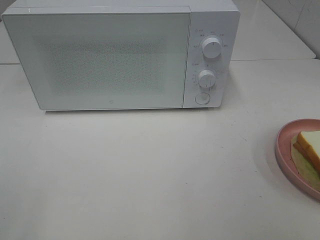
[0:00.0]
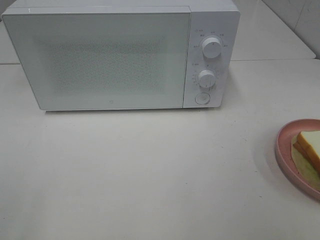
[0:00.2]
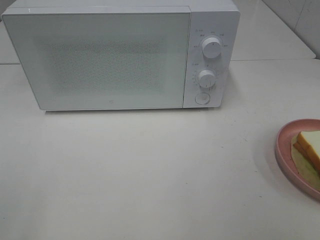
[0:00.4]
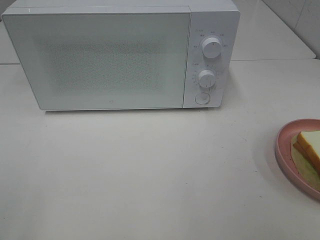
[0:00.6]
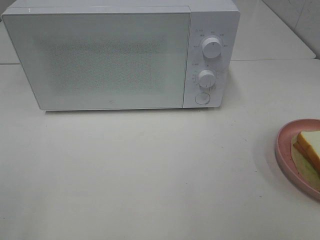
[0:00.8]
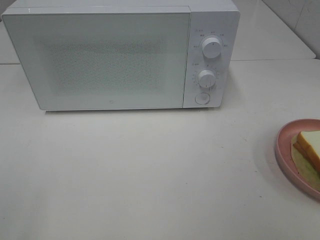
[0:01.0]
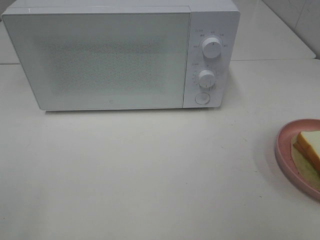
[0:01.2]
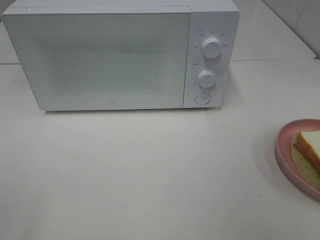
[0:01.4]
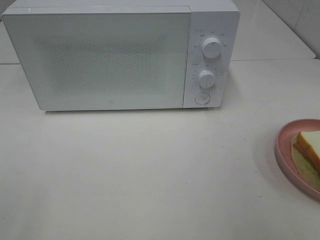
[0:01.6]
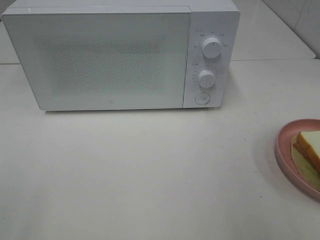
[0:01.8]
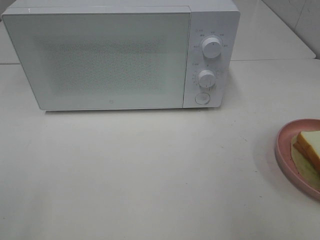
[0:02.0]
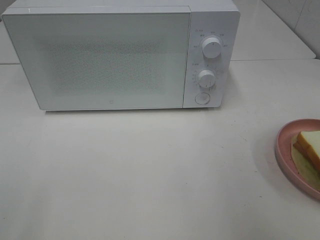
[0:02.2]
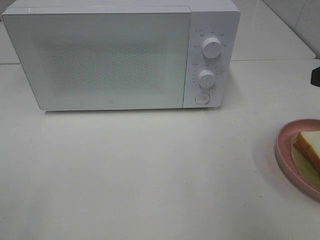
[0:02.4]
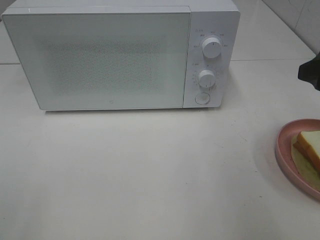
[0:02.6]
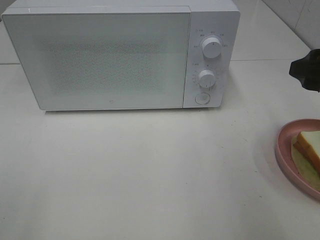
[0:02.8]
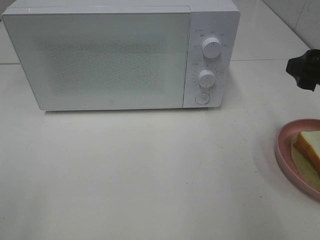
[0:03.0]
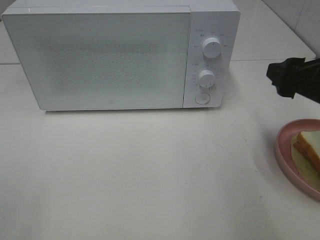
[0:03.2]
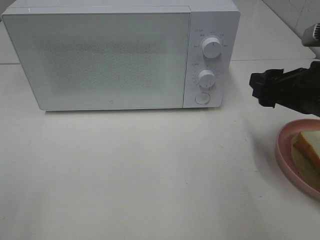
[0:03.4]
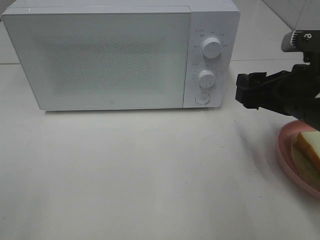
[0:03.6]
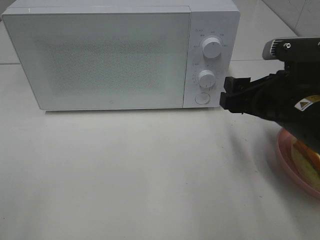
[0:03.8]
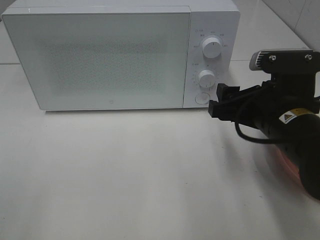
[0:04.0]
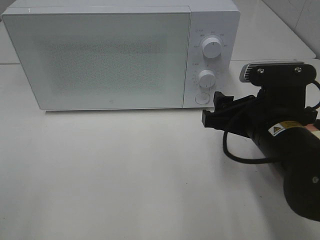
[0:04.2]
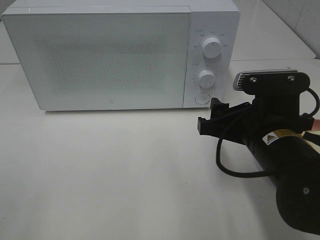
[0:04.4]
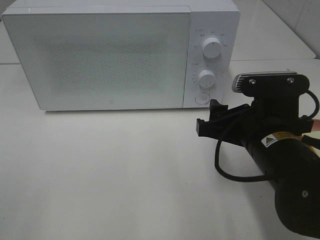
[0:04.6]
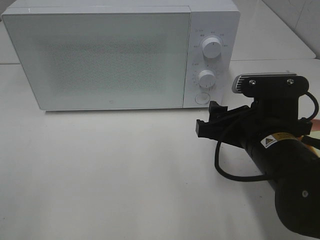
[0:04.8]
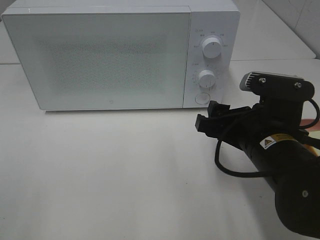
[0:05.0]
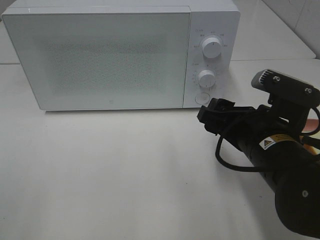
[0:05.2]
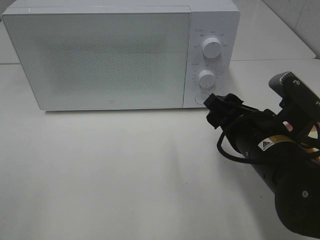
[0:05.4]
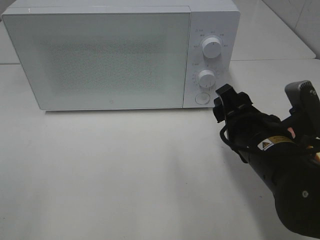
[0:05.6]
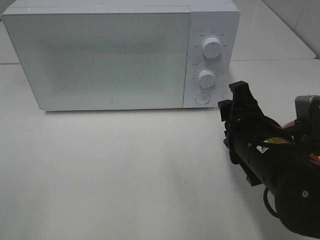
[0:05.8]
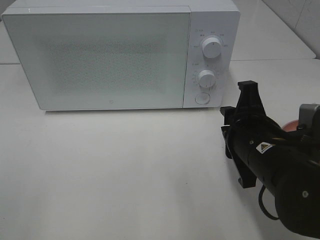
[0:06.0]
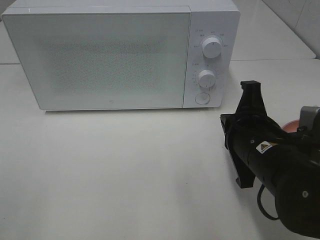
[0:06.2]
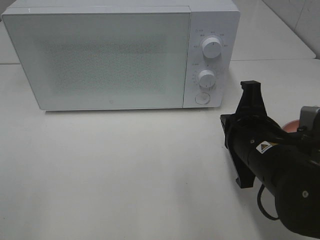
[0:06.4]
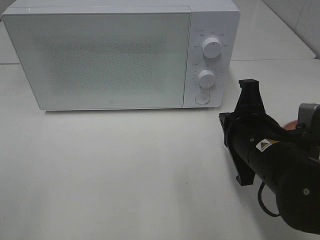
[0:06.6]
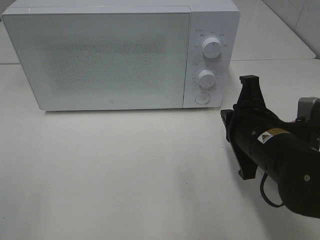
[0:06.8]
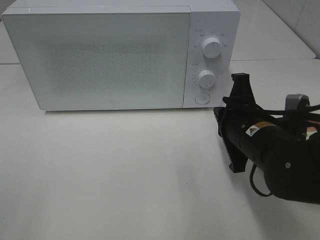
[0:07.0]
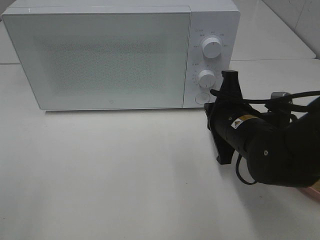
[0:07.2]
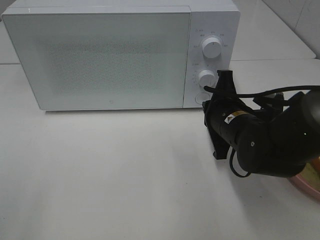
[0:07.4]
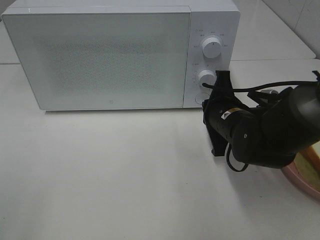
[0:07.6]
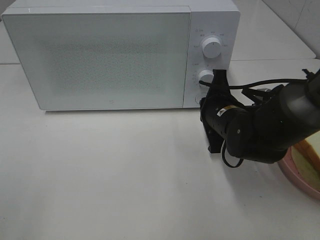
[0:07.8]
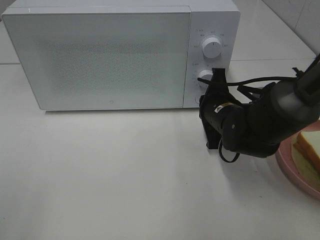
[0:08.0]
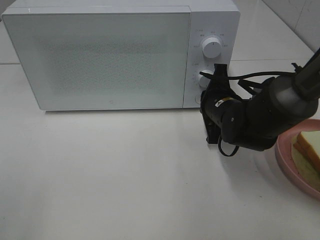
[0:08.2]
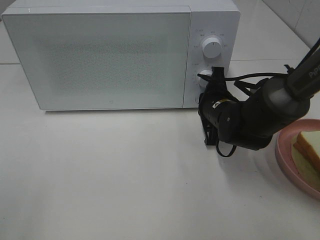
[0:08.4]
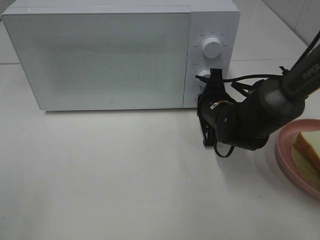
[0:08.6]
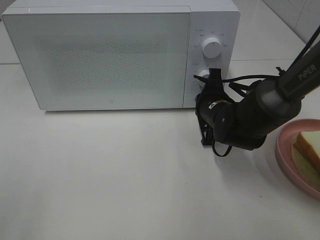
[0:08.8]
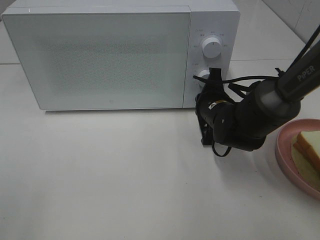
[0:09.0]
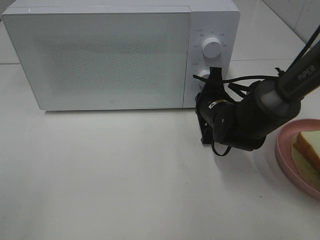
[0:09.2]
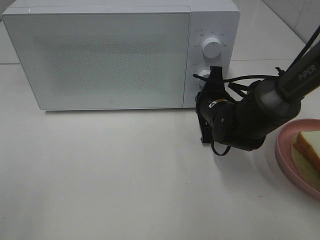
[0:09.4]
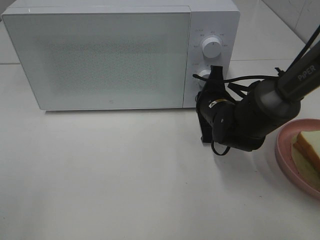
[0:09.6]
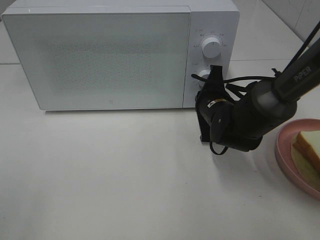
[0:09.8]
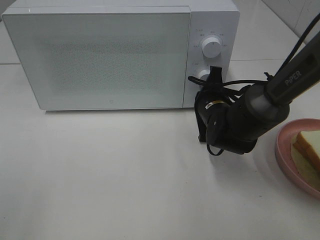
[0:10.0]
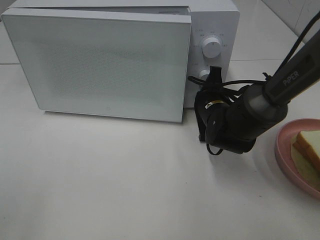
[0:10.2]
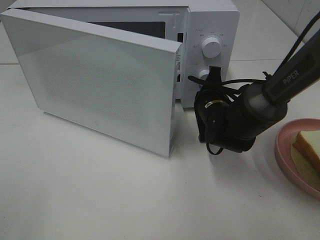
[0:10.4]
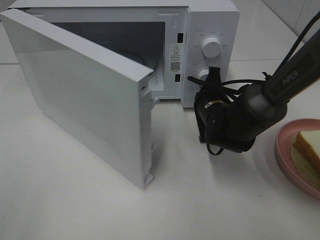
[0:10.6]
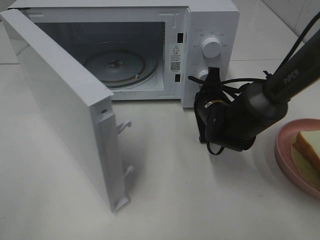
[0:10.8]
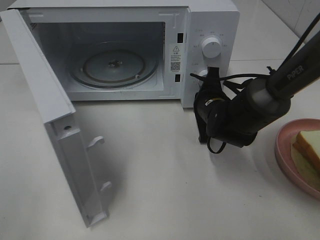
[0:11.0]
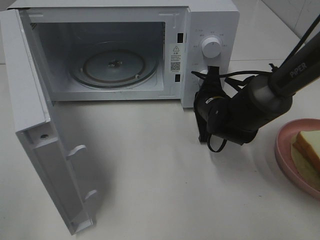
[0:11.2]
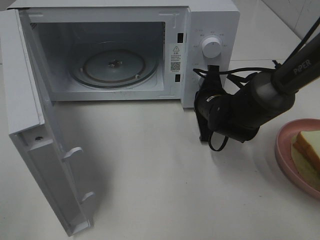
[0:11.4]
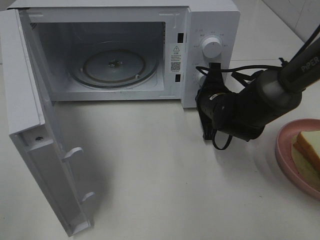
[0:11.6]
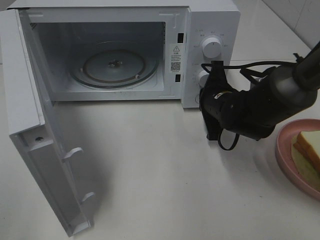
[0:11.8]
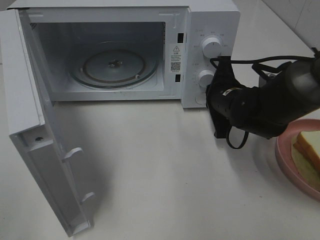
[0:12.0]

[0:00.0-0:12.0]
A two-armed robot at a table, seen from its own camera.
Task of the whole recording: Heat Sandwich.
0:01.6 to 0:03.0: The right gripper goes roughly 15 cm forward and downward.
0:03.0 to 0:04.4: The right gripper travels to the left and downward by roughly 15 cm.
0:04.4 to 0:06.0: The right gripper closes its fingers.
0:06.0 to 0:07.6: The right gripper goes some 10 cm forward, and closes up.
0:07.6 to 0:09.0: The right gripper goes some 5 cm forward.
0:09.0 to 0:10.4: The grippers stay close to where they were, moving slightly.

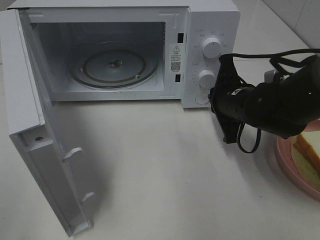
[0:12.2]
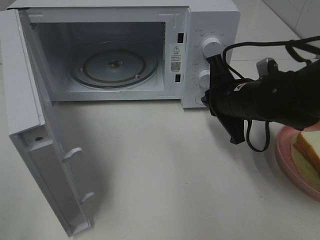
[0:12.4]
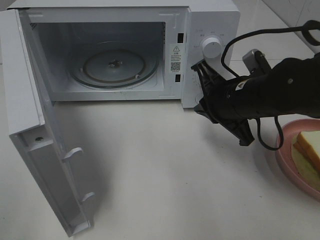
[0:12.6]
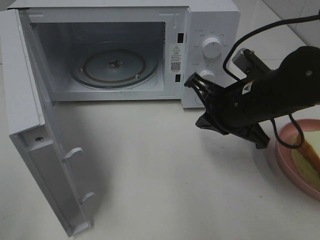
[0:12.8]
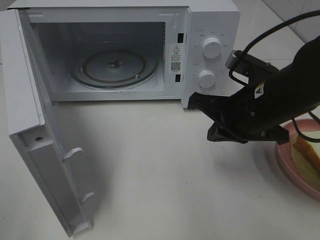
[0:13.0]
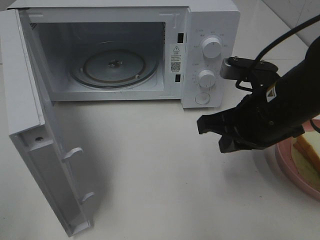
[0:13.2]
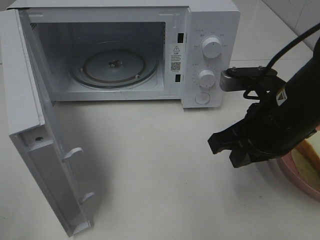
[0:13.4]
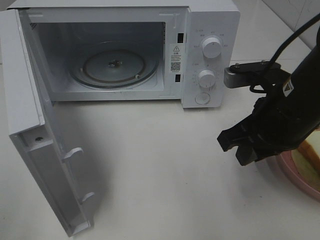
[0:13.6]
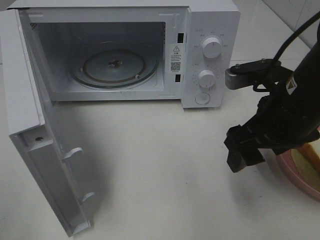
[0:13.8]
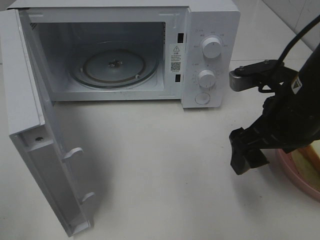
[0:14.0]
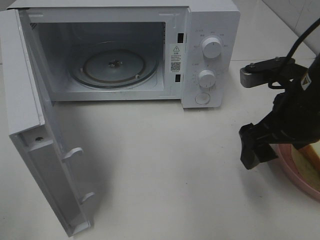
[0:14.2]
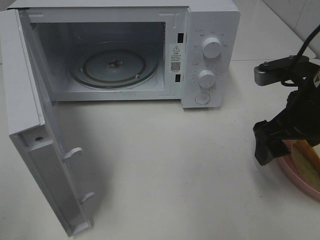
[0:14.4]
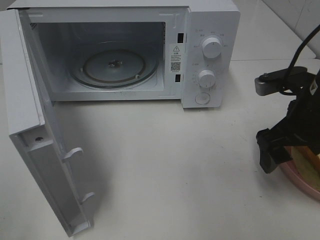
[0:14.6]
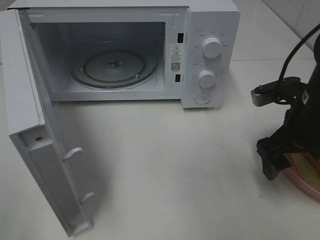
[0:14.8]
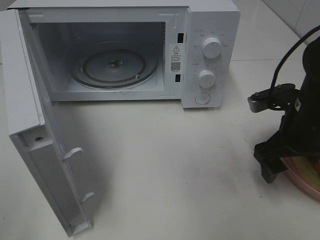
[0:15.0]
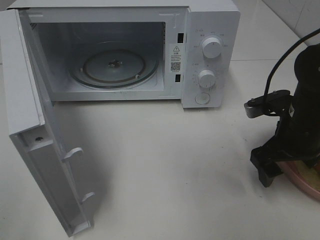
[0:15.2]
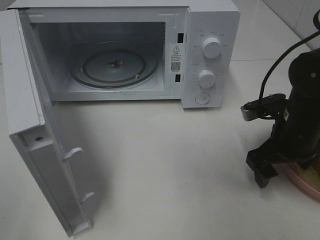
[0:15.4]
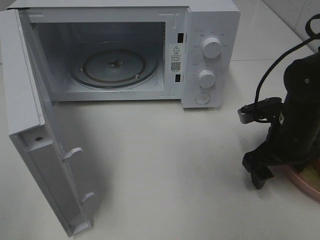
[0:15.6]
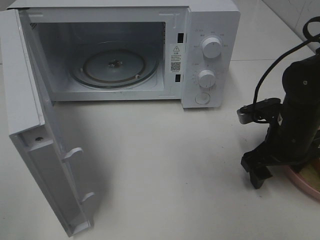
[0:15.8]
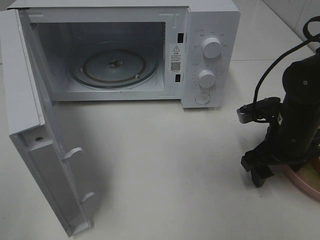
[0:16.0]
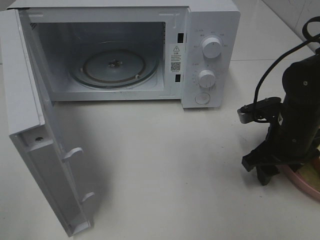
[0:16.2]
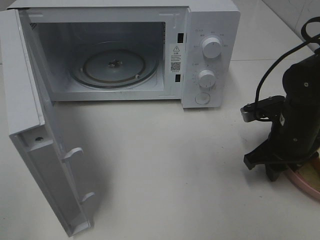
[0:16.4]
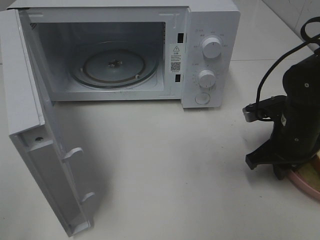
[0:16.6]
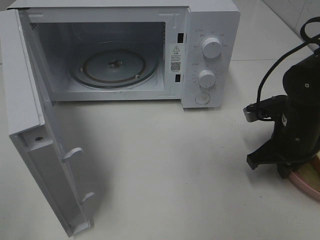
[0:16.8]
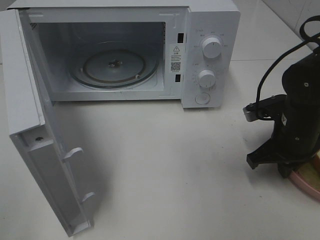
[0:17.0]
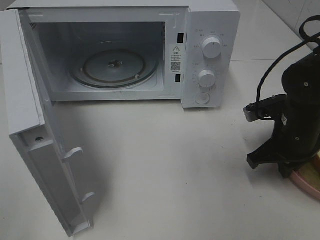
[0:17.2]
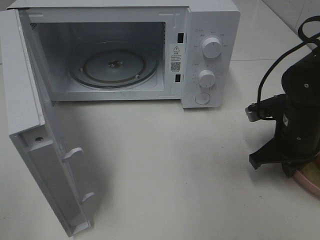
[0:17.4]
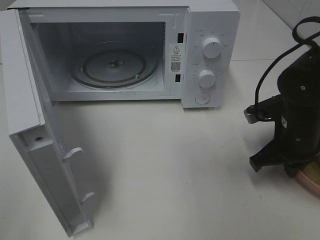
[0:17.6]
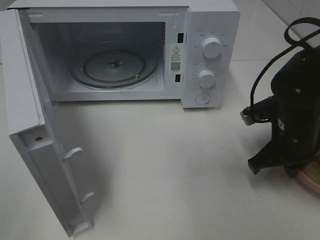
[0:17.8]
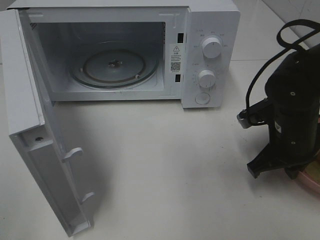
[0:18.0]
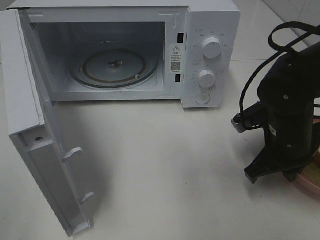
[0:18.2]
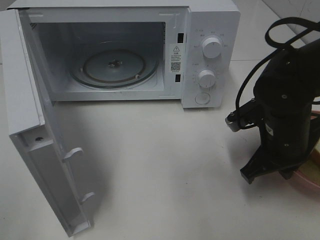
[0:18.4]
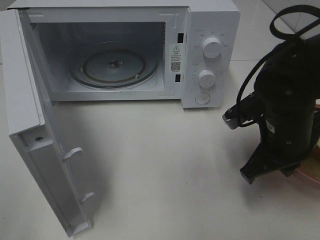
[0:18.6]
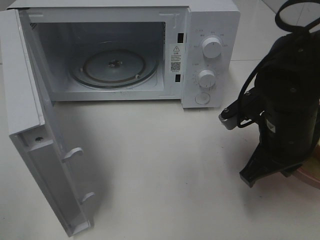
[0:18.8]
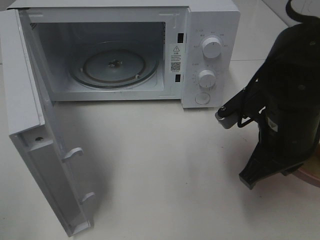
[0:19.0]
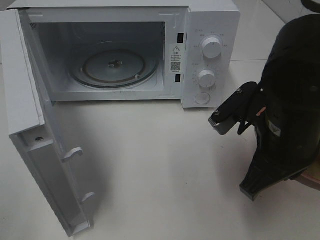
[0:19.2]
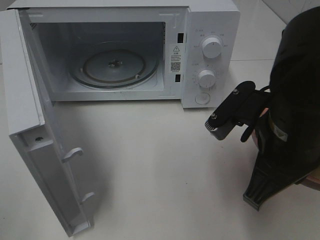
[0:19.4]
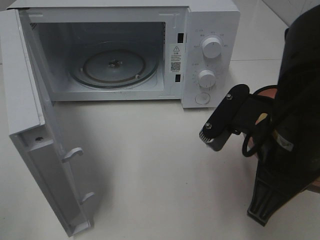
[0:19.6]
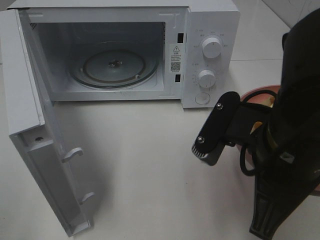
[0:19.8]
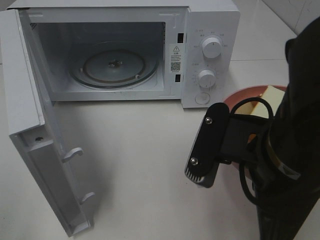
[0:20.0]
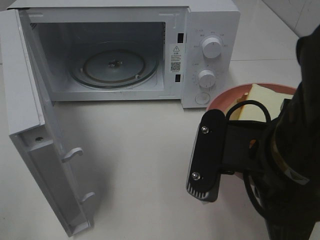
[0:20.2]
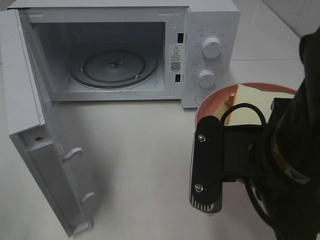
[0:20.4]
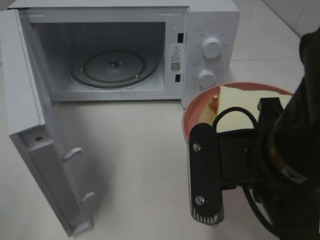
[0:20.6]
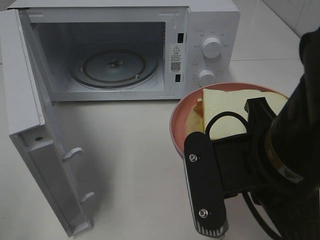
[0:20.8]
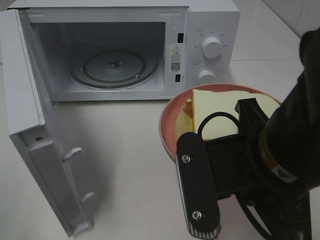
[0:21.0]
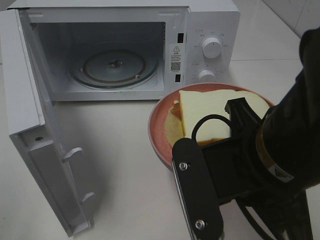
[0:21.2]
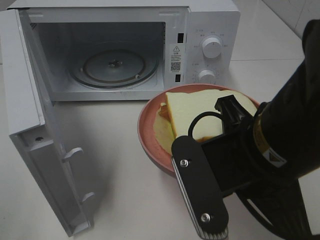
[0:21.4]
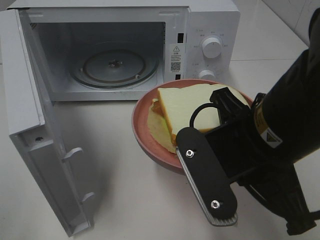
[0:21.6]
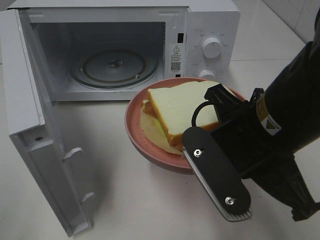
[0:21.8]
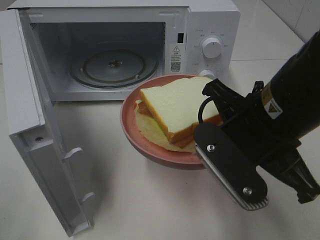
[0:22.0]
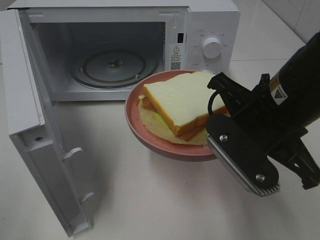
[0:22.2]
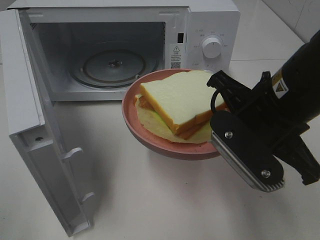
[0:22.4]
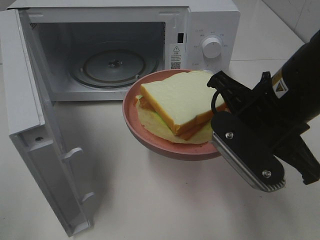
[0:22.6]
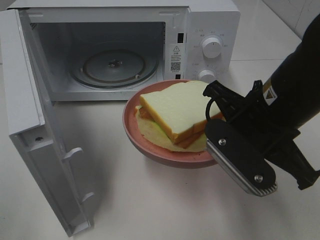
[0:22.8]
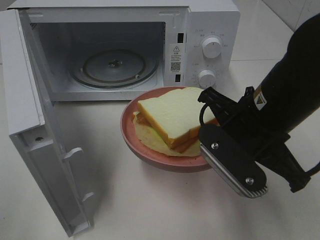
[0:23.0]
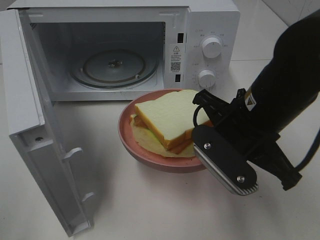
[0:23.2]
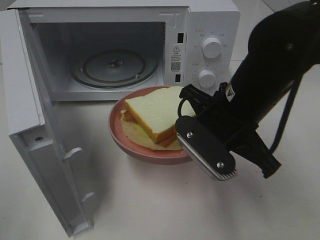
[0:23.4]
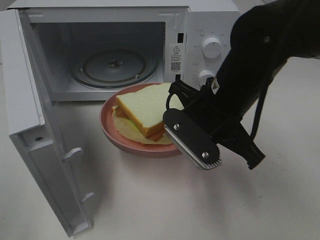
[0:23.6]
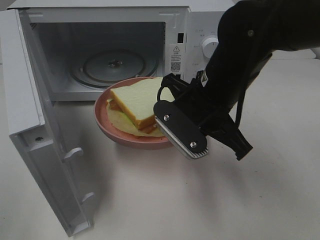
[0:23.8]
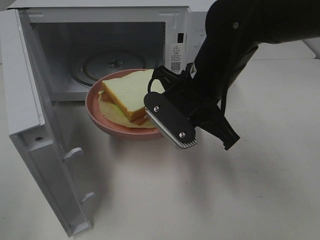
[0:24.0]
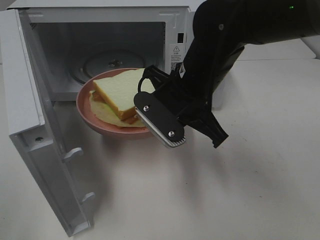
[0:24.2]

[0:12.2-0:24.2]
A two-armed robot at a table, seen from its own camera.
Task of the whole recording: Heat Sandwich.
Step, 0:12.4 to 0:16.6: Right hand: grab the plate with the sandwich.
0:12.2 to 0:13.8: The right gripper goes approximately 10 cm backward and upward, and opens its fingers.
0:13.8 to 0:15.2: The right gripper travels downward and to the right by some 10 cm.
0:15.2 to 0:16.6: The right gripper closes its fingers.
0:16.6 to 0:18.2: There are only small adjustments of the grippers.
0:18.2 to 0:19.8: The right gripper moves backward, upward and to the left, some 15 cm.
0:21.2 to 0:22.6: The right gripper moves forward, roughly 10 cm.
0:22.6 to 0:24.2: The right gripper shifts about 10 cm to the left and forward.
